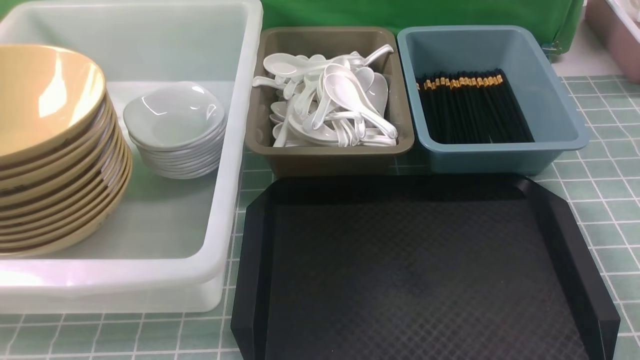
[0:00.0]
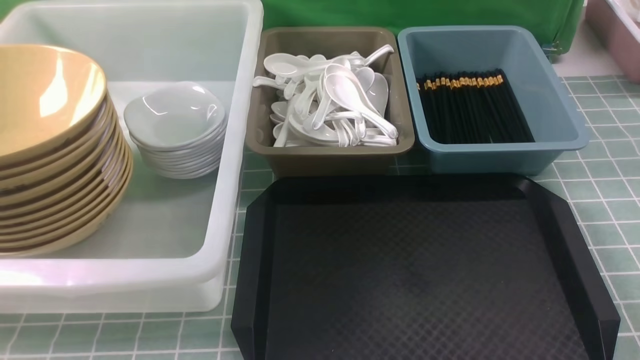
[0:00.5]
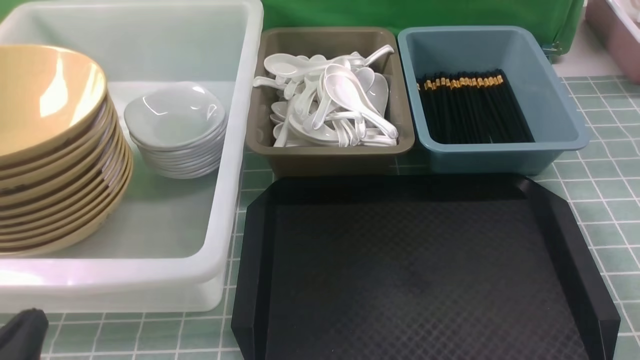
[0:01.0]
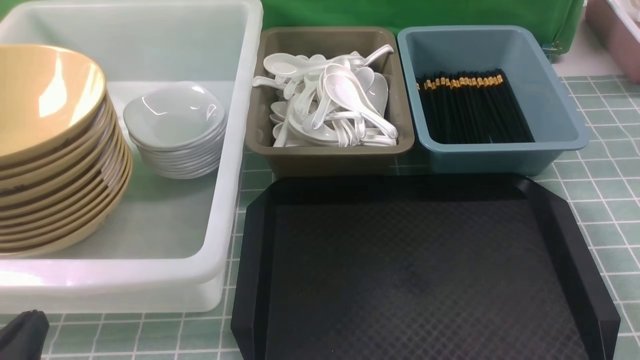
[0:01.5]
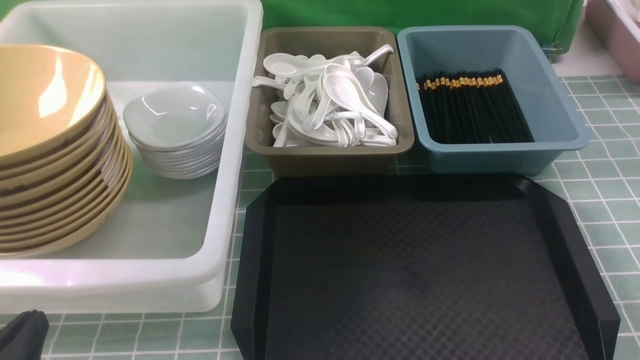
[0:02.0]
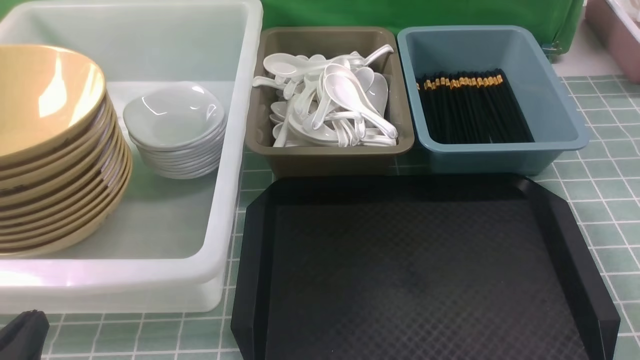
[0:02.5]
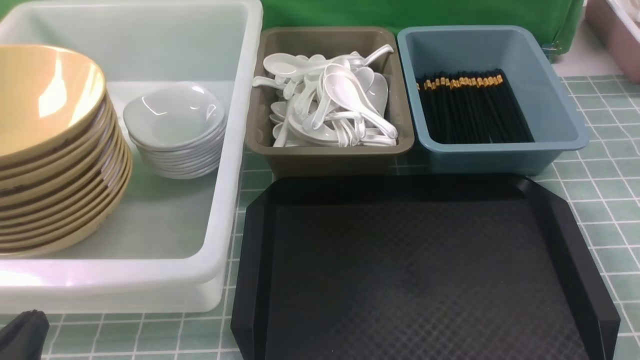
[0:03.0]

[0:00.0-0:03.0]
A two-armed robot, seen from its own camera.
Task of the whole recording: on blue table put chopsticks spoon bowls plates into blue grey white boxes.
0:00.0 to 0:01.5: The left gripper travels downward by approximately 10 cm.
0:01.5 to 0:03.0: Both grippers stay put.
